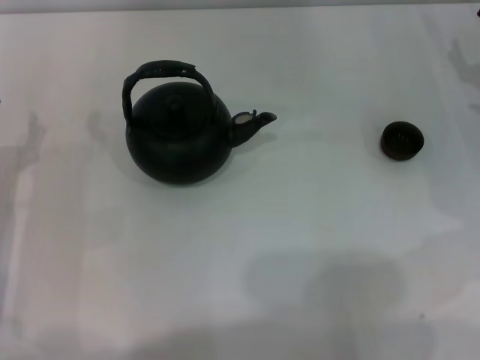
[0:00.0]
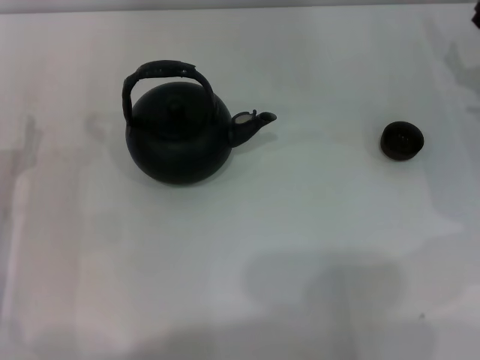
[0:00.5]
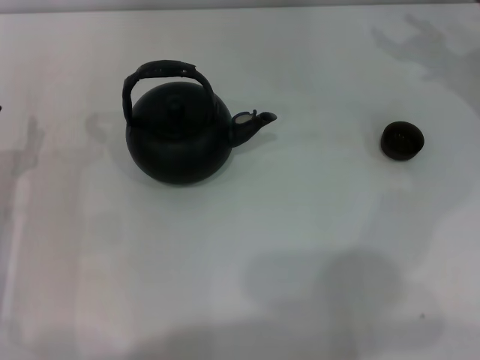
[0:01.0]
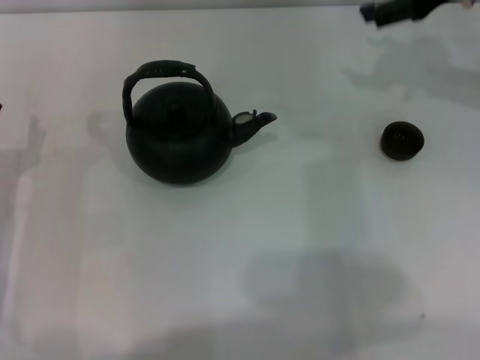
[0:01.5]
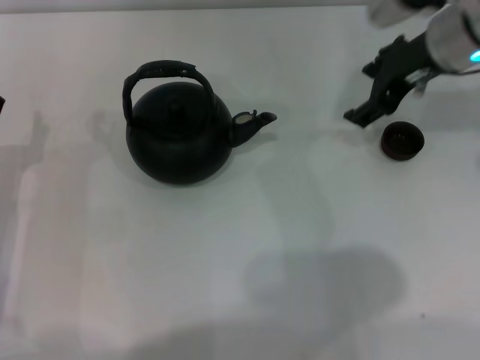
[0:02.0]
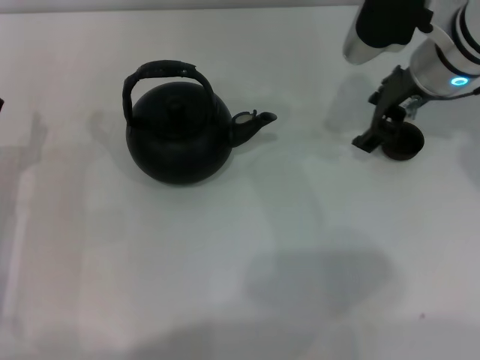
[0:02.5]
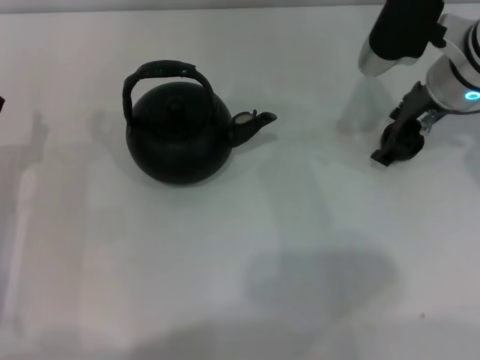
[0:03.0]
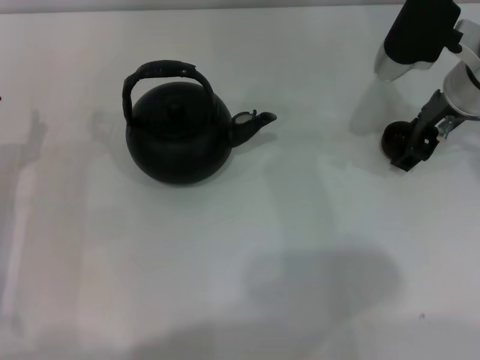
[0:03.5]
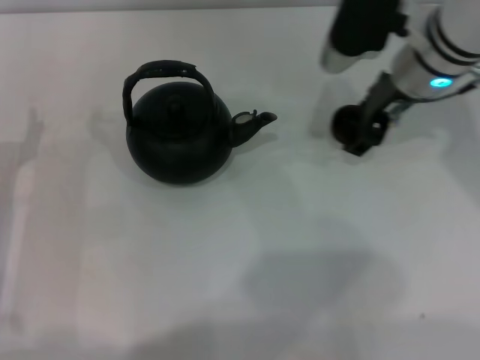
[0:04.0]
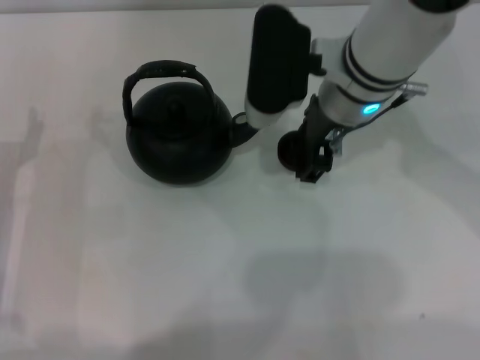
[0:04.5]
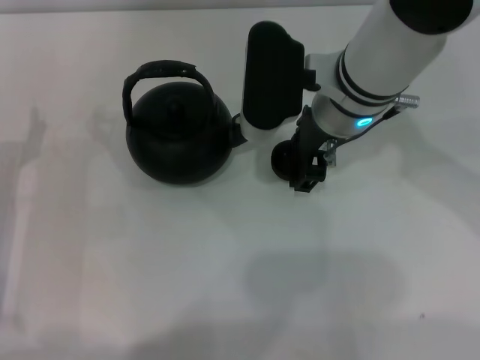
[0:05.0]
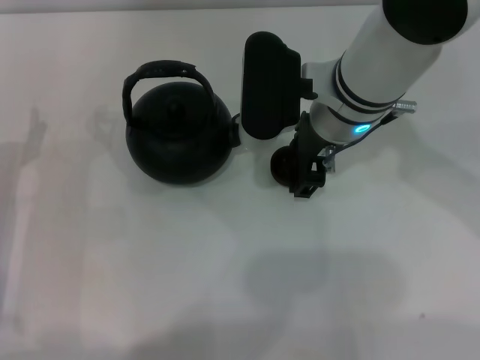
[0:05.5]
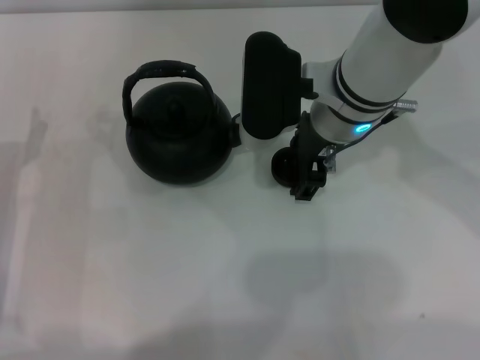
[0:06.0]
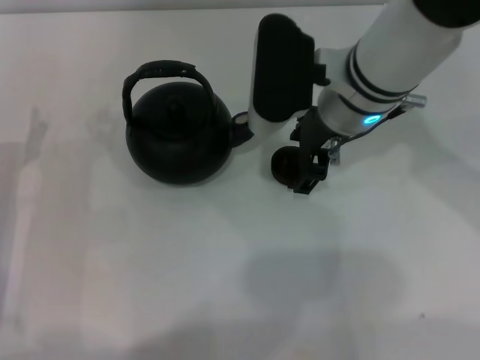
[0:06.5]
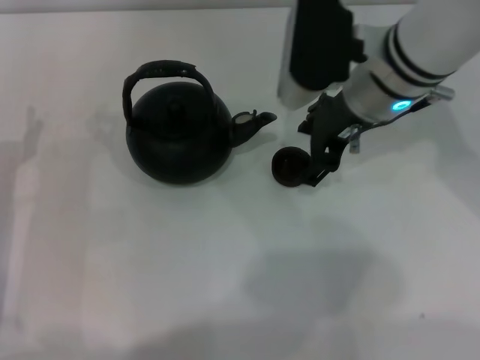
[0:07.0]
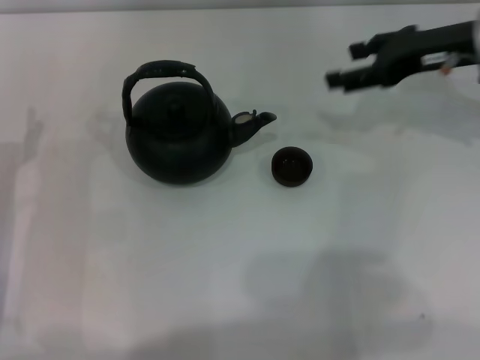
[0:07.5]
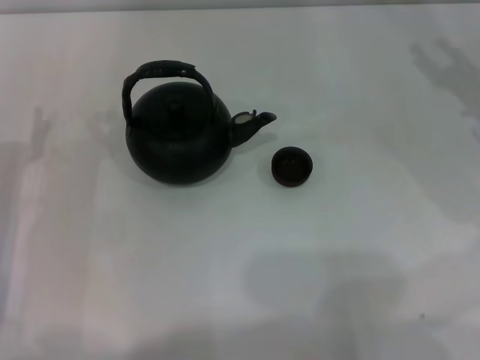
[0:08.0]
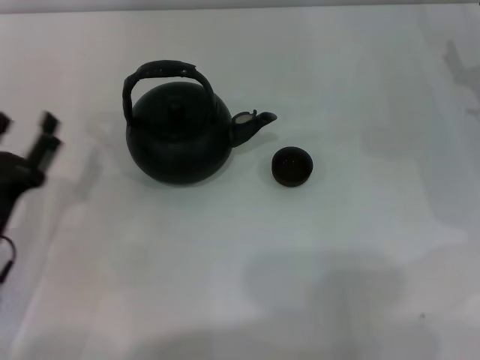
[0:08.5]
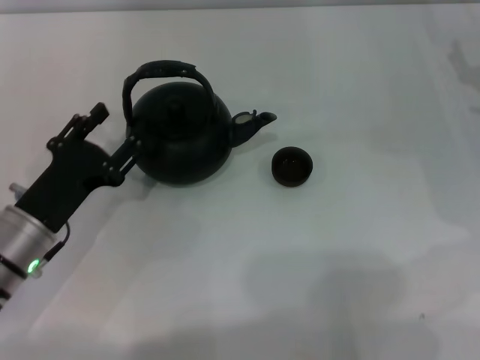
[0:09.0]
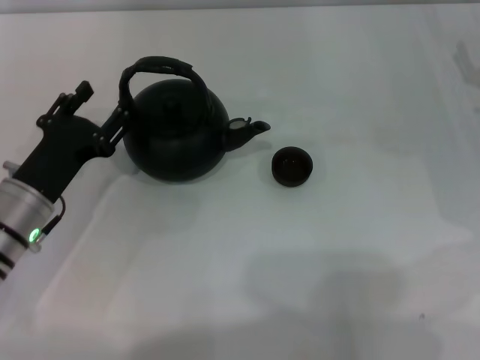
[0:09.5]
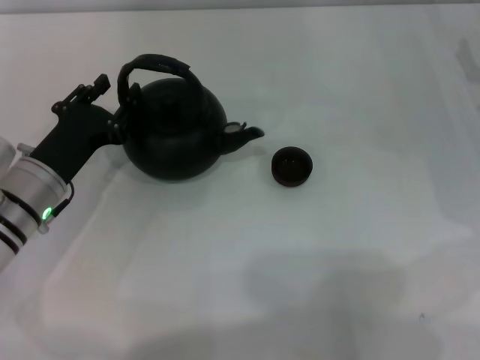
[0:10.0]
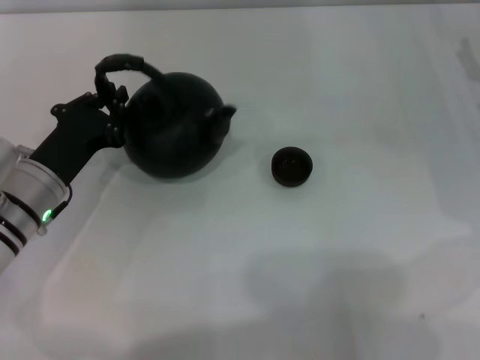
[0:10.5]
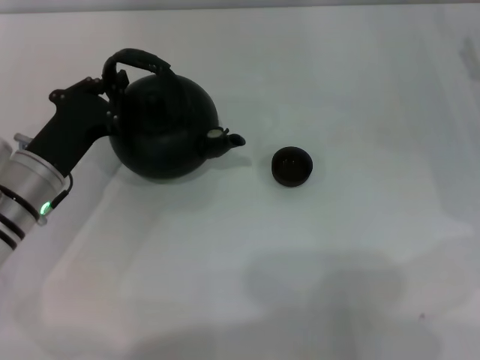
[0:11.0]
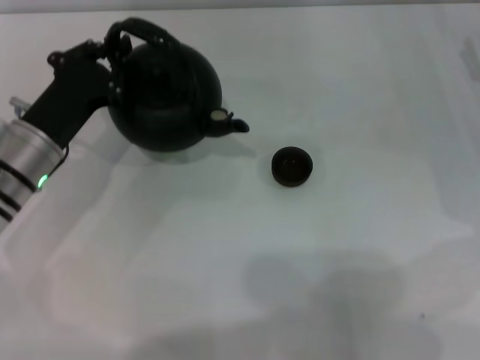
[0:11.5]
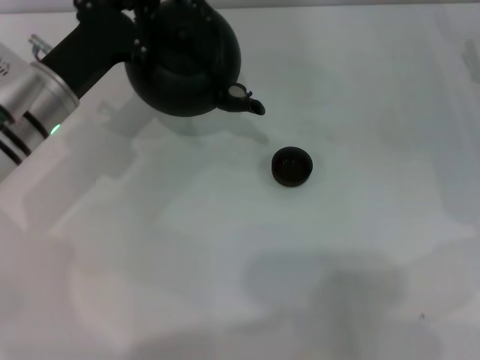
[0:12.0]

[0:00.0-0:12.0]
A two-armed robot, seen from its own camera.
Task of the whole recording: Grasp the handle of the teapot with one hand and pour tea into the teacup.
Step, 0:00.0 to 0:03.5: Pick up the teacup with the right gripper.
Step, 0:04.0 to 0:06.5: Place the teacup in the center of view with the right gripper.
Step, 0:07.0 to 0:11.0: Pick up the teapot with the left gripper.
0:00.0 to 0:02.0: The right gripper travels to the left and upward by some 20 cm.
0:02.0 to 0:04.0: The right gripper closes up.
0:04.0 to 0:06.0: The right gripper is displaced to the left by some 5 cm, and opens its fingers.
0:06.0 to 0:08.0: The right gripper is displaced to the right by approximately 25 cm.
0:08.0 to 0:10.0: The left gripper shifts some 5 cm to the right.
0:10.0 to 0:12.0: The left gripper moves forward and upward, about 10 cm, and closes its fingers.

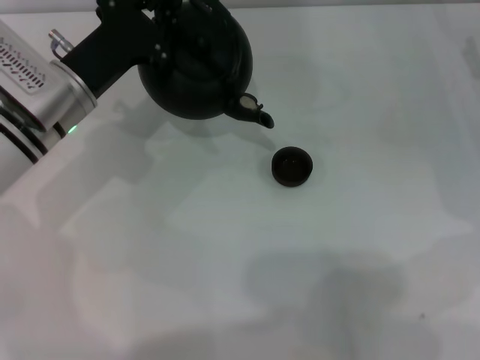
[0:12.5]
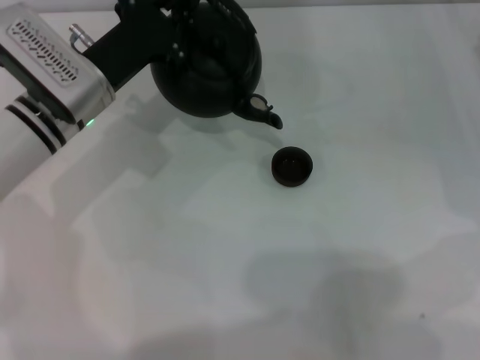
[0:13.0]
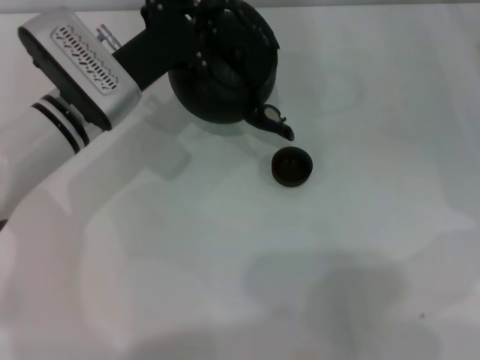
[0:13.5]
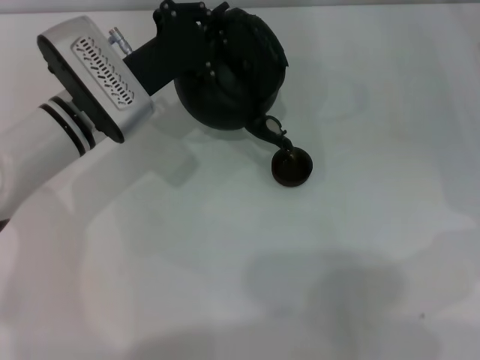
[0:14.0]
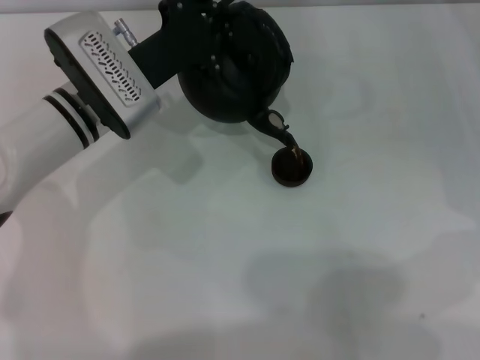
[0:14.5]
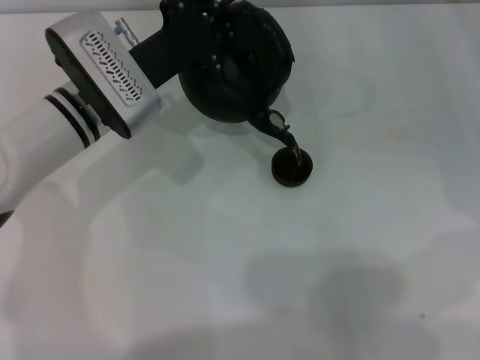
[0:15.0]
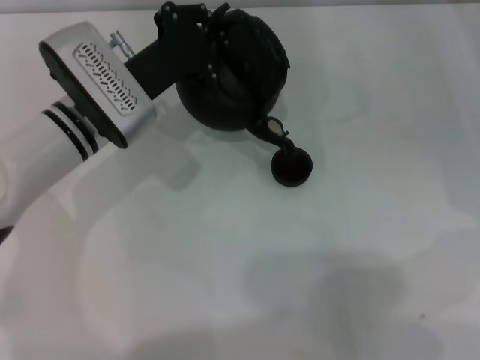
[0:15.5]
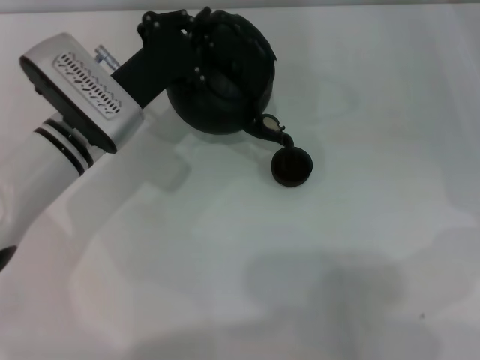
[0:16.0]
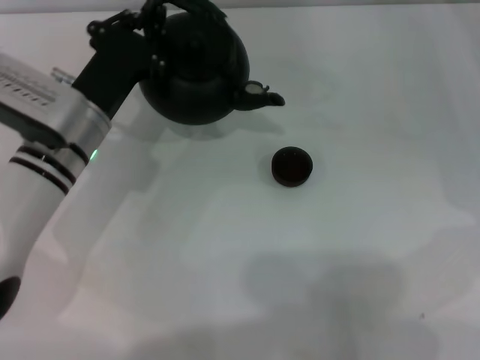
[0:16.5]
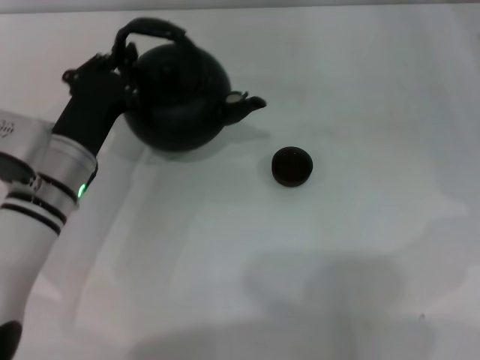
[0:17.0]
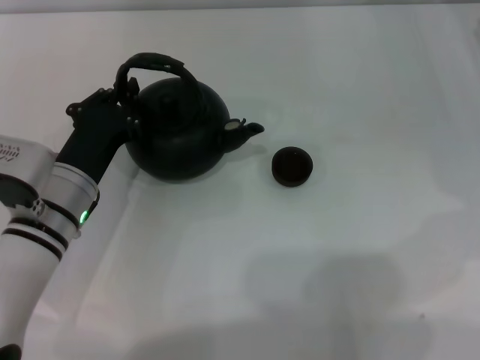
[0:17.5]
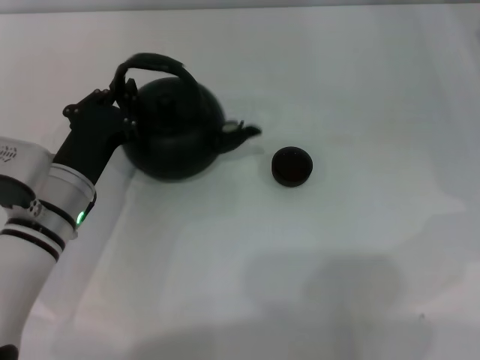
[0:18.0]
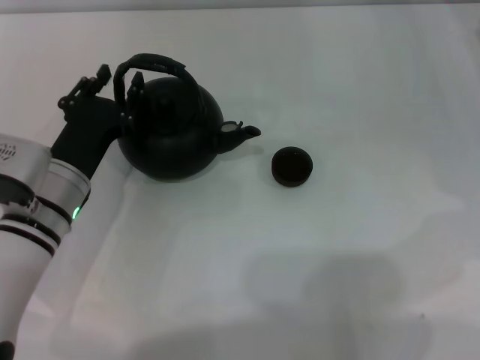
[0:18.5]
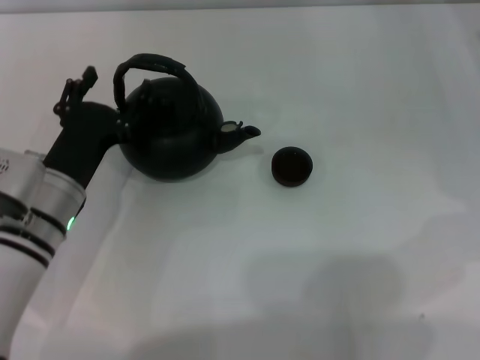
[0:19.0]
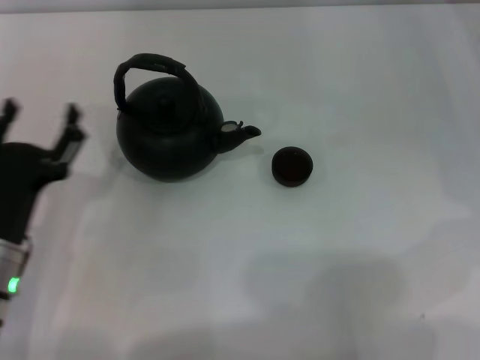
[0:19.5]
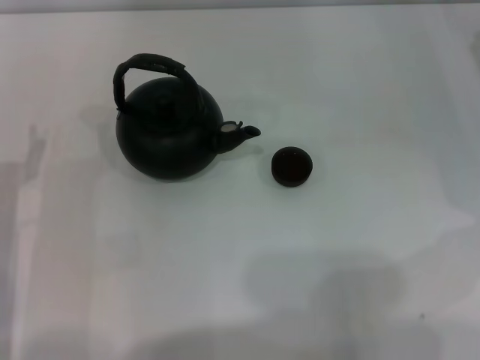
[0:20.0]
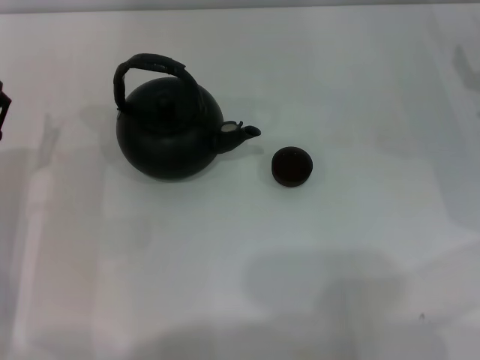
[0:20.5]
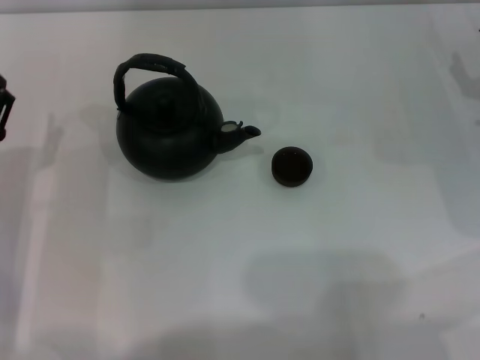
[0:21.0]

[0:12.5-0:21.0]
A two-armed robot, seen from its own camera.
Task of the whole recording: Grasp the handle of the teapot with one hand and pour tea into the teacup.
Step, 0:12.5 to 0:16.0: Pour tea into the teacup with the left gripper.
Step, 0:16.5 to 0:18.5: Put down the teapot with the left gripper.
0:12.5 to 0:14.5: The grippers move only a little.
0:14.5 to 0:16.5: The left gripper changes place by roughly 5 cm.
0:16.5 to 0:19.0: The left gripper travels backward by some 5 cm, and opens up.
0:19.0 to 0:21.0: The left gripper goes about 10 cm to the left.
